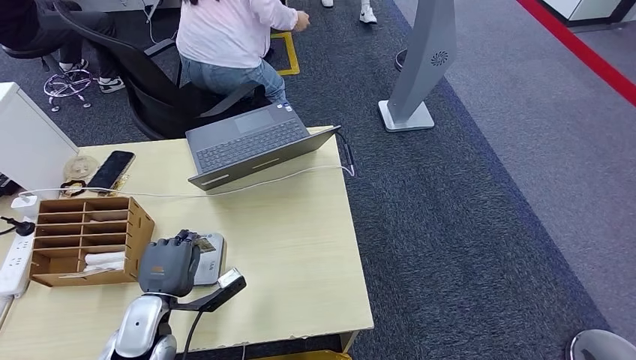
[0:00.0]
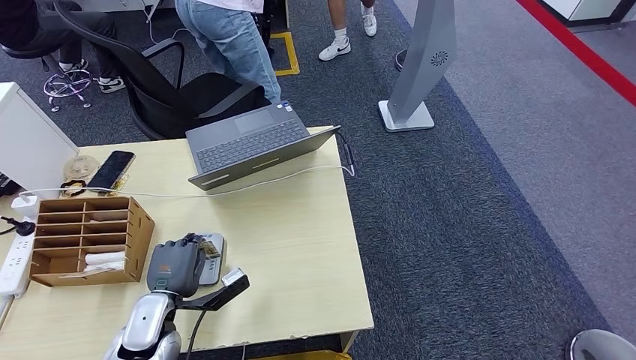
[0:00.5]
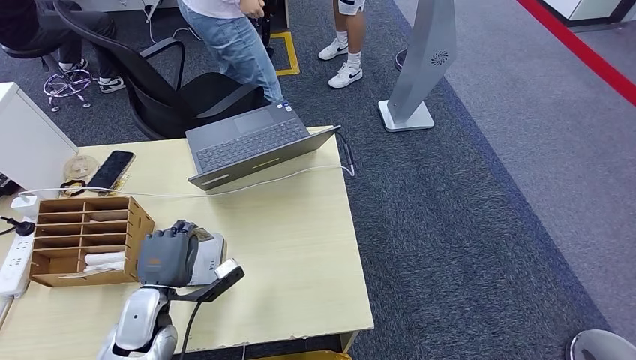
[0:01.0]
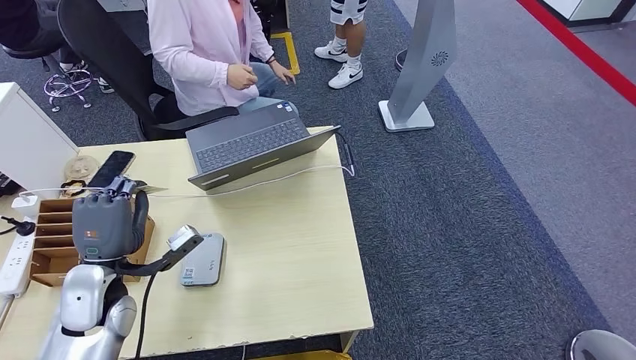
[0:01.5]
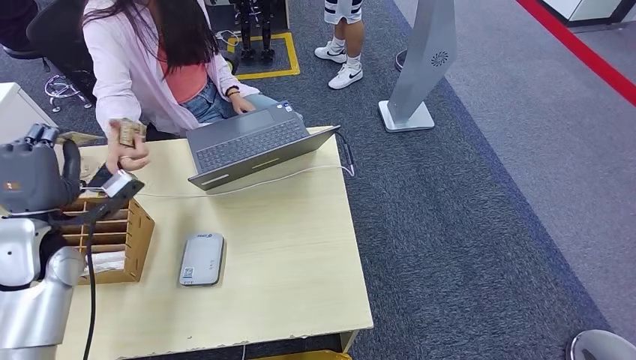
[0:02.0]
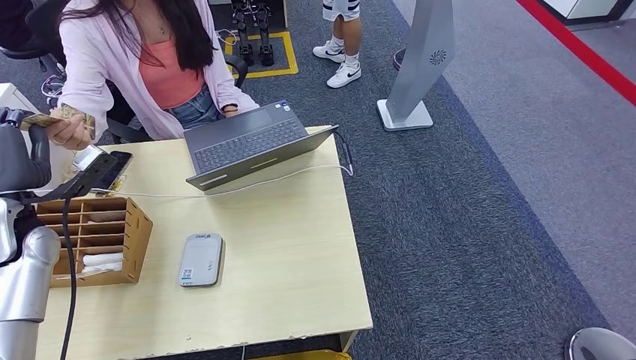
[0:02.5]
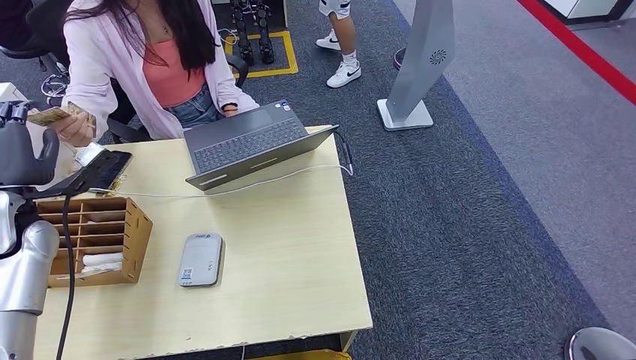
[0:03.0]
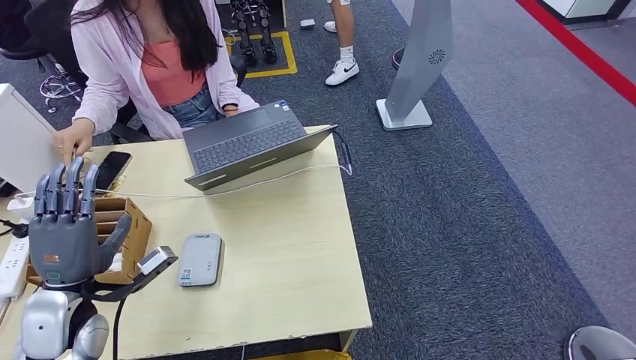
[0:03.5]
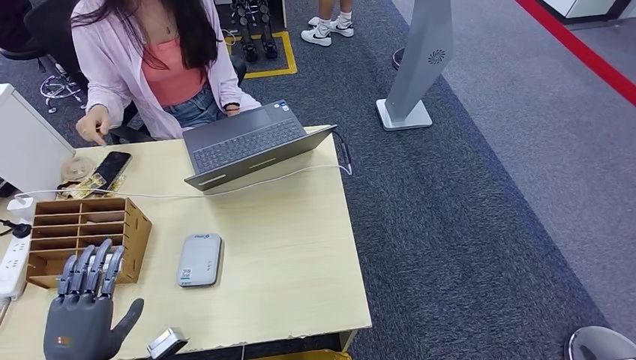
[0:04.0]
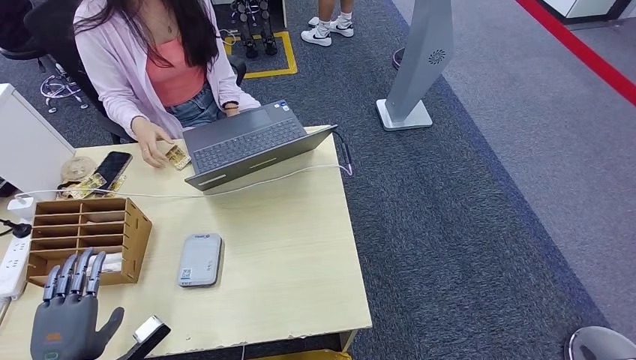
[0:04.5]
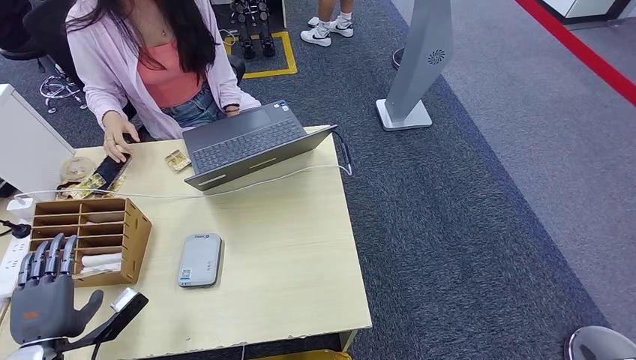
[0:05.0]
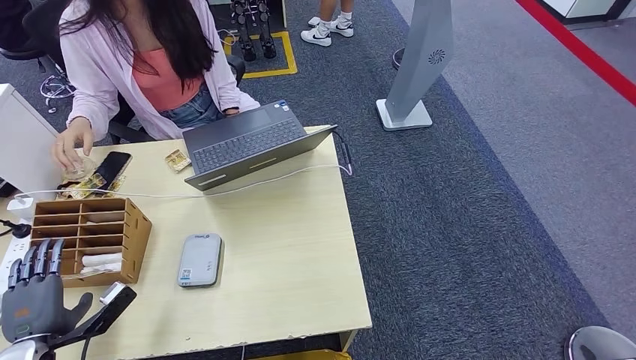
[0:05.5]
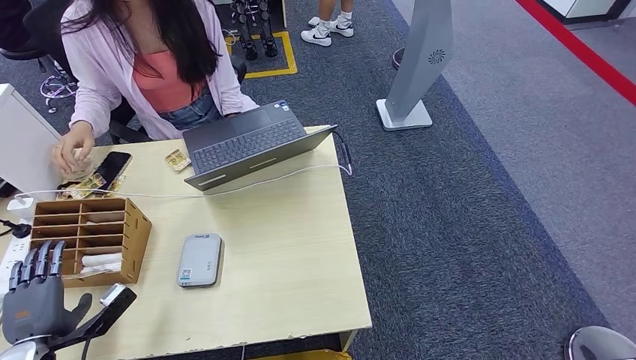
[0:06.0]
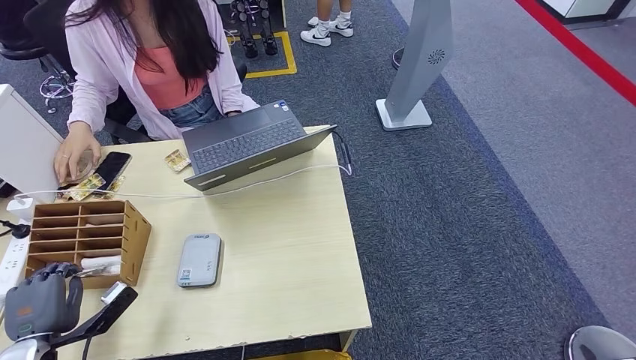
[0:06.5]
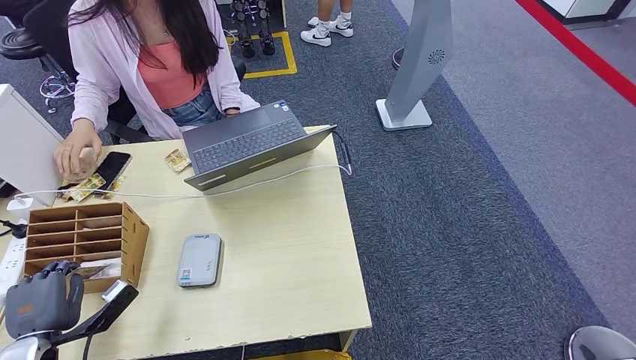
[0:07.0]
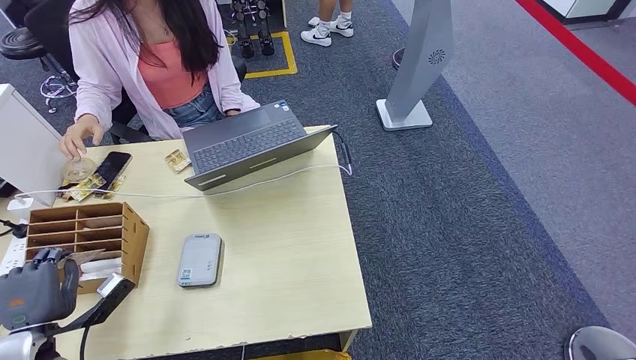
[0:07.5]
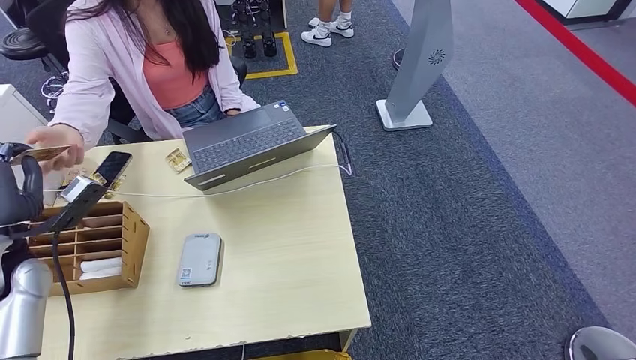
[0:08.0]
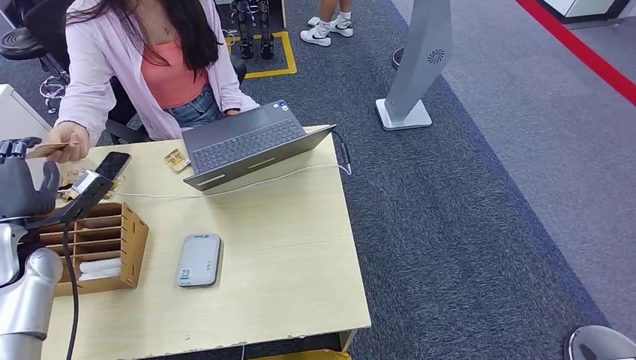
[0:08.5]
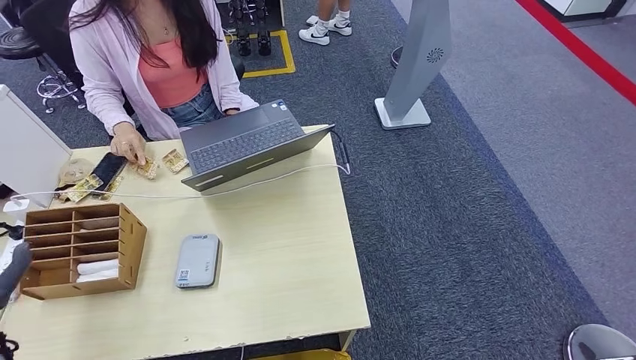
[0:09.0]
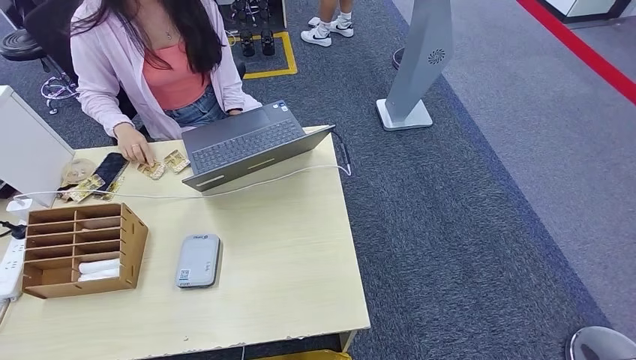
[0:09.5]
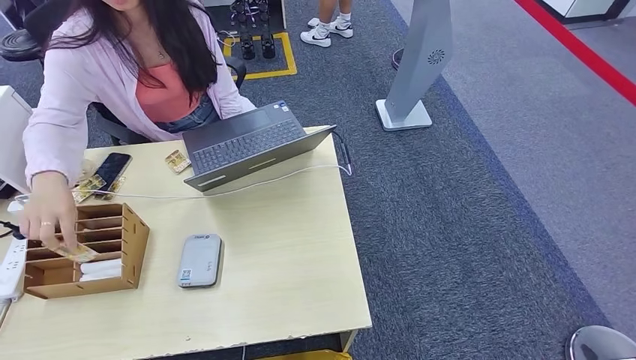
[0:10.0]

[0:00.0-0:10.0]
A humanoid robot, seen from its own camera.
Step, 0:01.0 to 0:04.0: Hand the ID card to the person.
Step, 0:04.5 to 0:07.5: Pick up the room key from the key card box.
Step, 0:08.5 to 0:10.0: Hand the room key to the person.
0:04.0 to 0:06.0: The left hand heads to the left and forward, covering approximately 10 cm.
0:06.0 to 0:08.0: The left hand is displaced upward and forward by approximately 20 cm.
0:08.0 to 0:10.0: The left hand moves backward and downward, approximately 50 cm.
